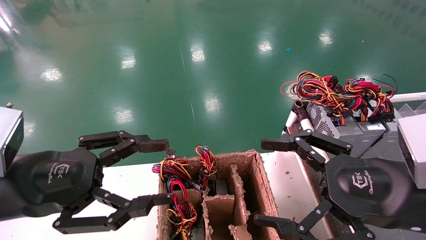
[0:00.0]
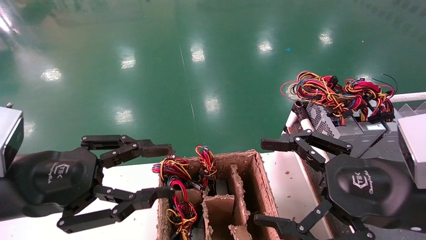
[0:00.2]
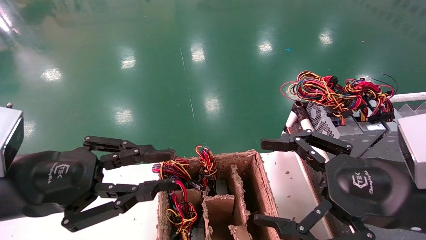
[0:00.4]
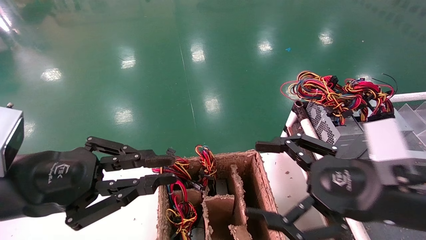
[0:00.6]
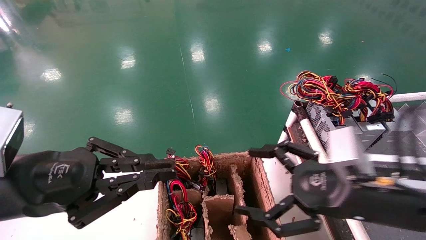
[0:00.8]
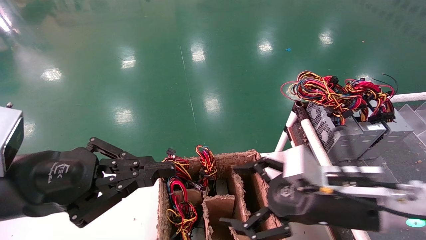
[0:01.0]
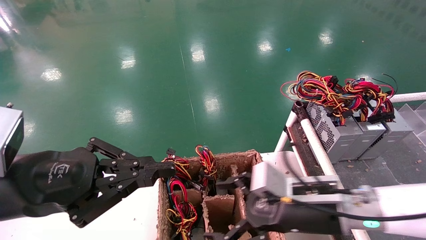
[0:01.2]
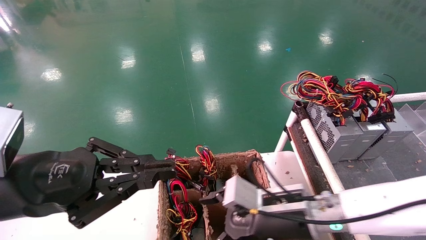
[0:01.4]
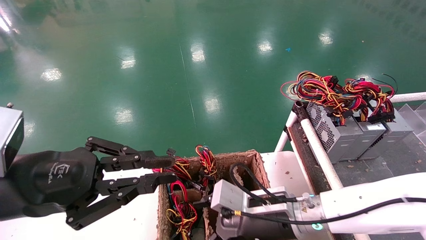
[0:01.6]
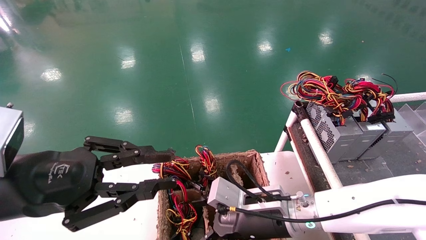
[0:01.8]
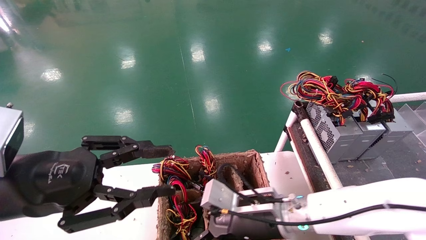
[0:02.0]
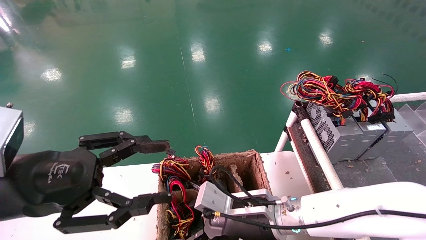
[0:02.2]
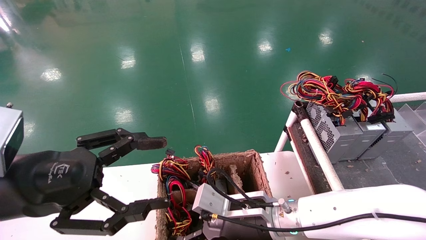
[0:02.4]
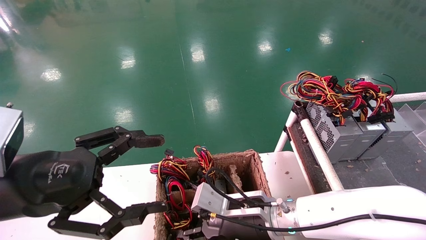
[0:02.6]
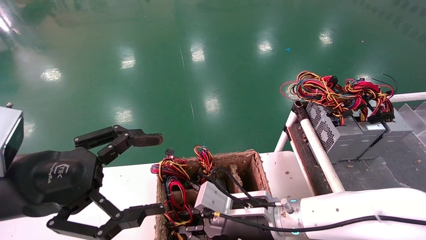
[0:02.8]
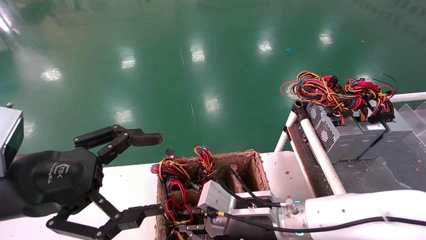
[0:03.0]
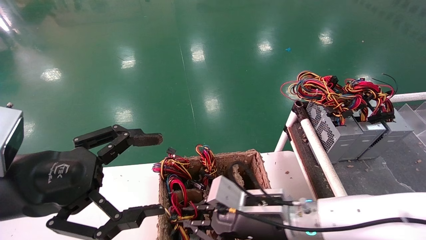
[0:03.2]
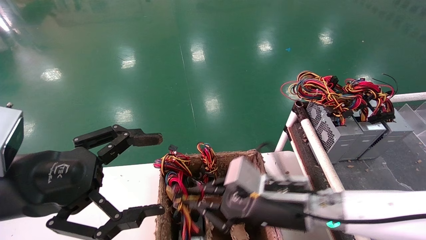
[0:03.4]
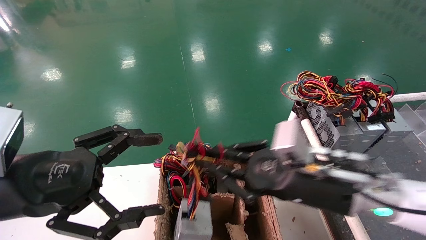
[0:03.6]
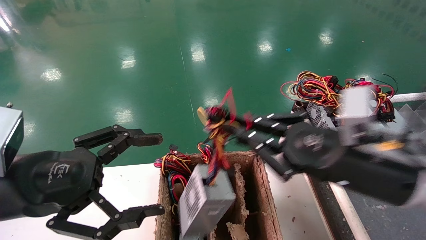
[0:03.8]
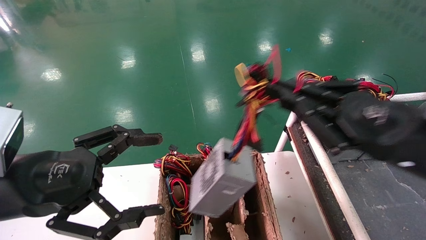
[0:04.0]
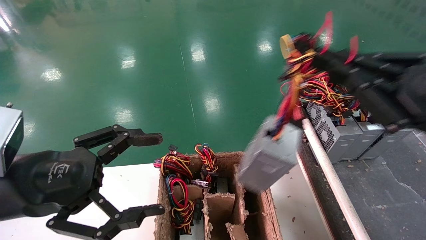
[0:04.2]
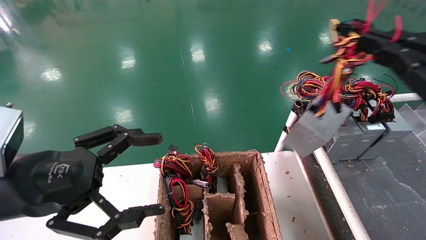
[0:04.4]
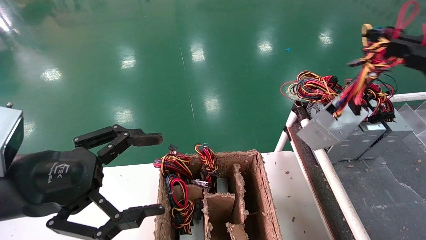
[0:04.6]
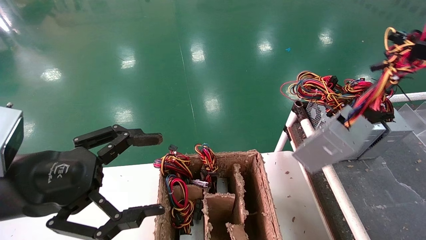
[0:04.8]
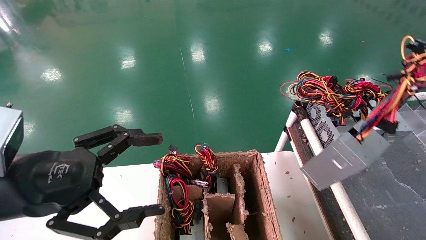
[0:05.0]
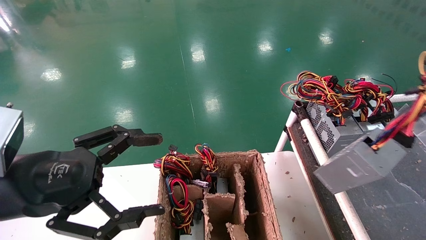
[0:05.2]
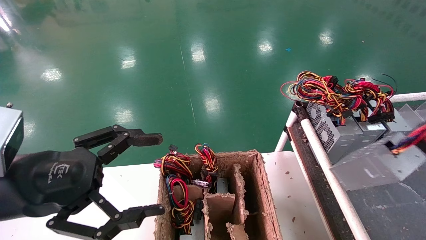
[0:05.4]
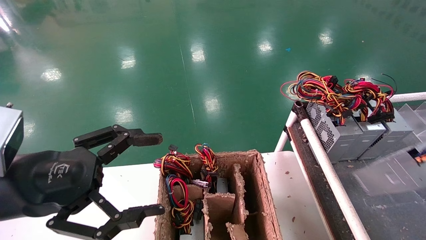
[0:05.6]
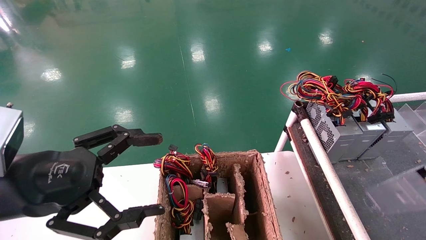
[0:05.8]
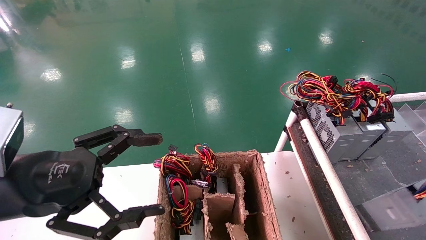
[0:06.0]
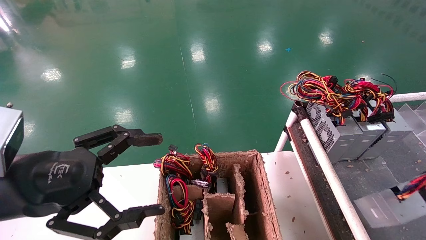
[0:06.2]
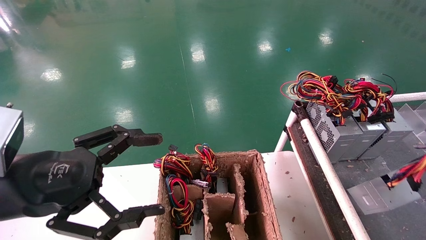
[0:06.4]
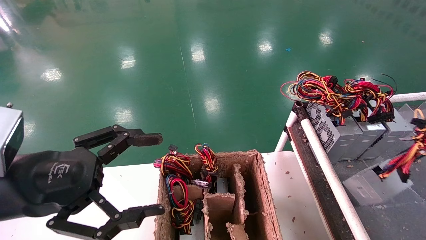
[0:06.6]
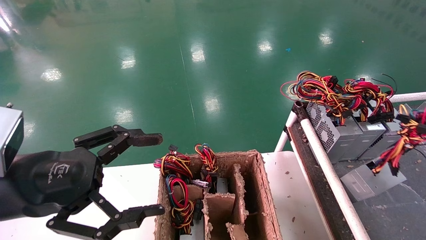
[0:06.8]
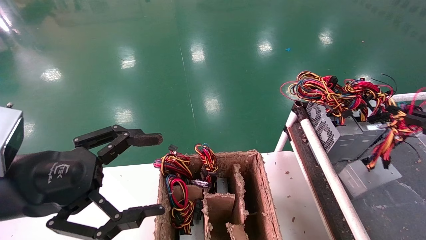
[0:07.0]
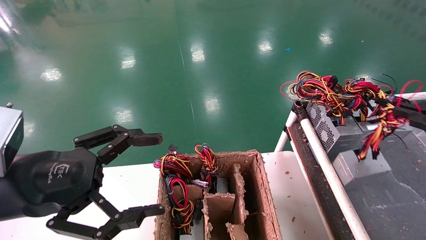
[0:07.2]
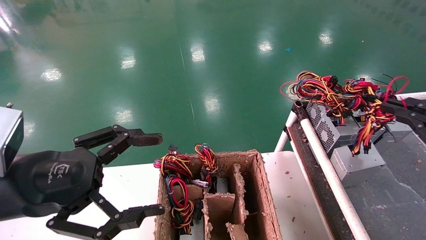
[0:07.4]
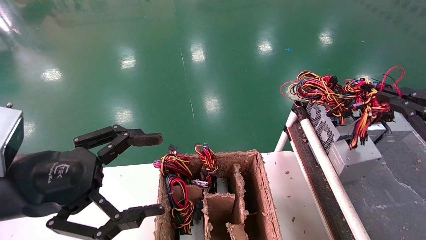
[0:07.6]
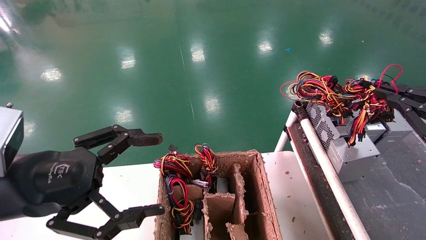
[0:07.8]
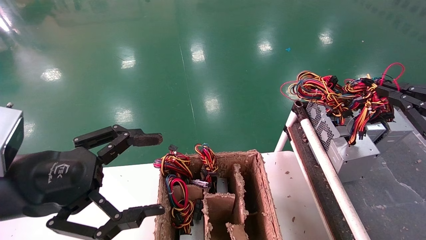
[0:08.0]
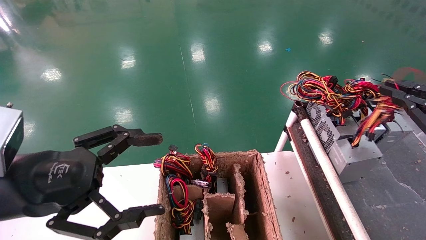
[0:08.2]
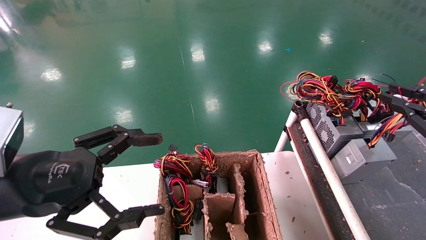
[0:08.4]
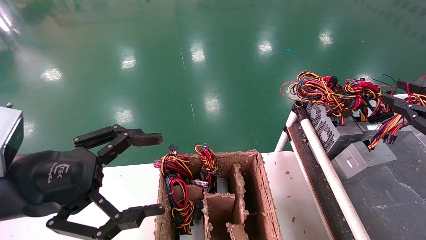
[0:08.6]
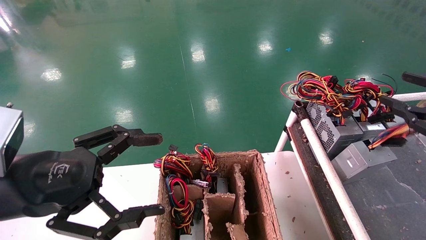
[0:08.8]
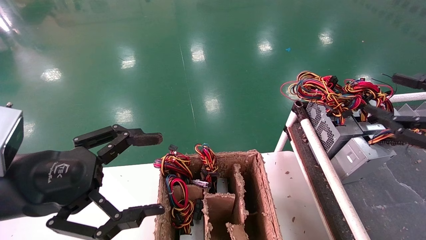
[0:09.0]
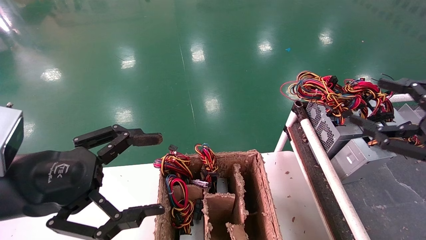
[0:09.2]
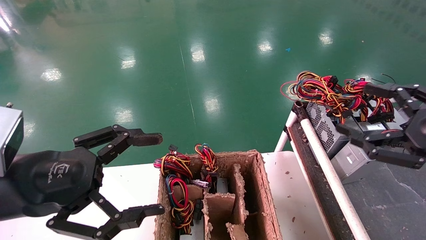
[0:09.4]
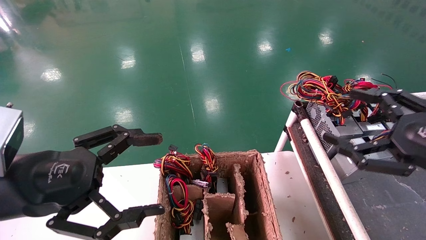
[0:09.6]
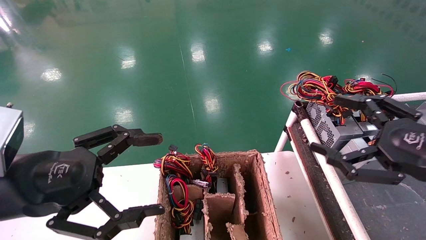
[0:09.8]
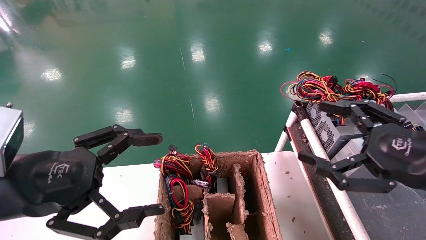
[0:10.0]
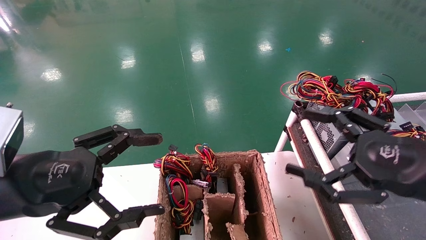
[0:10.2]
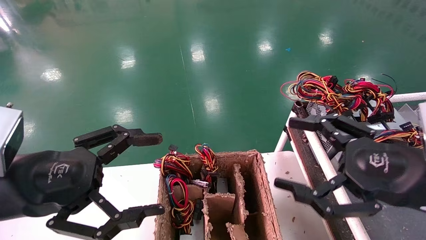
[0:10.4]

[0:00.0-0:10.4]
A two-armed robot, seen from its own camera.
Step, 0:00.8 to 0:04.2: Grab and lift the power supply from the large box.
Step, 0:04.4 to 0:07.8: Place the power supply on the operating table.
0:00.0 to 0:01.4: The left gripper closes its fingers, while the right gripper travels to the left, downward and forward by some 20 cm.
0:01.4 to 0:03.0: The left gripper opens, while the right gripper closes.
0:03.0 to 0:04.4: The right gripper is displaced to the right, upward and backward by roughly 35 cm.
0:04.4 to 0:06.0: The right gripper moves to the right, backward and downward, some 15 cm.
0:06.0 to 0:07.4: The right gripper is displaced forward and to the left by about 10 cm.
0:07.4 to 0:09.0: The right gripper opens up.
0:09.0 to 0:10.4: The right gripper heads to the left, covering about 10 cm, and opens.
